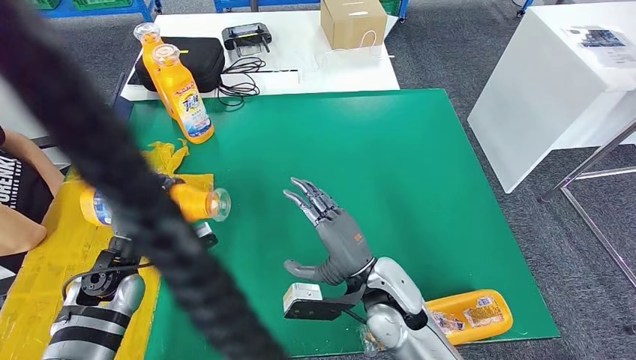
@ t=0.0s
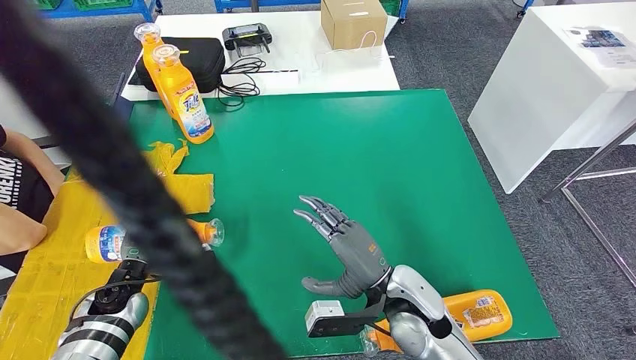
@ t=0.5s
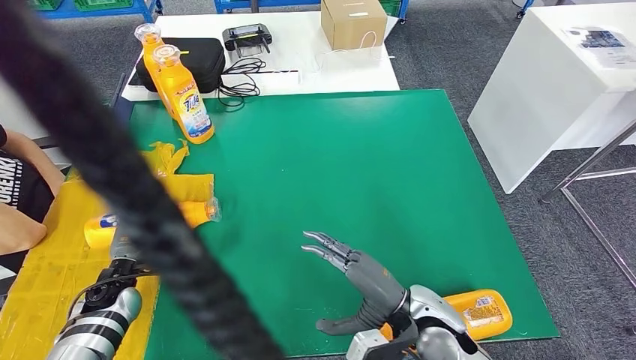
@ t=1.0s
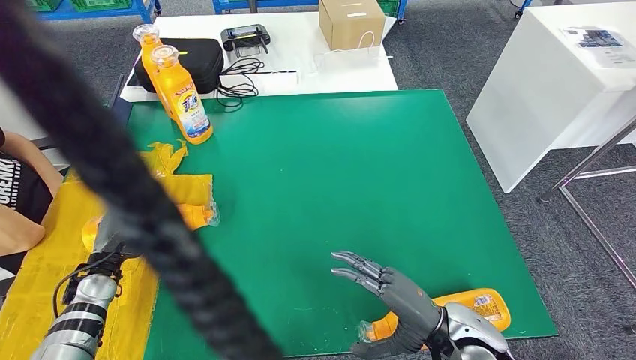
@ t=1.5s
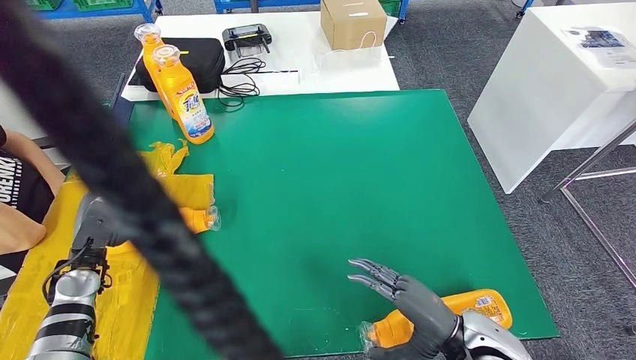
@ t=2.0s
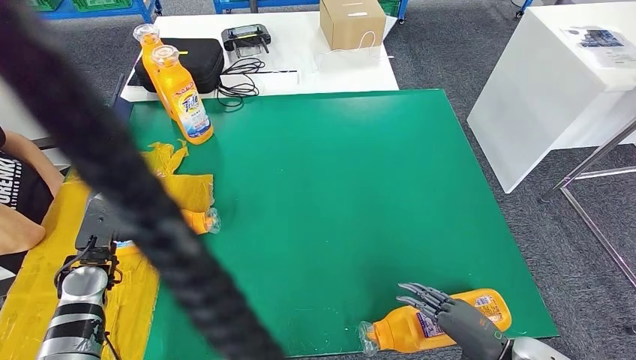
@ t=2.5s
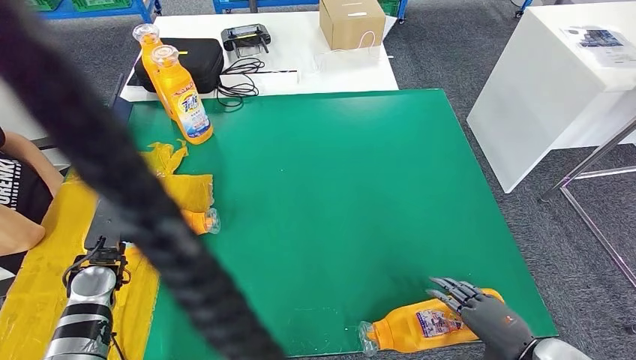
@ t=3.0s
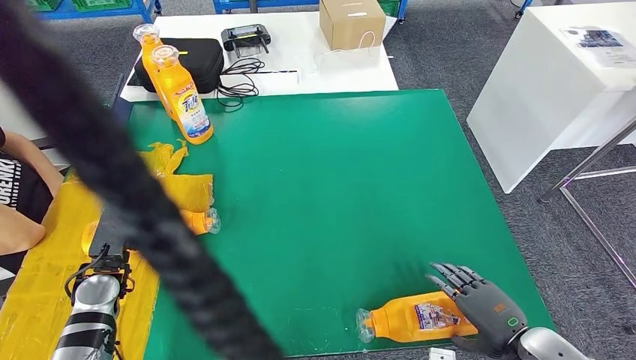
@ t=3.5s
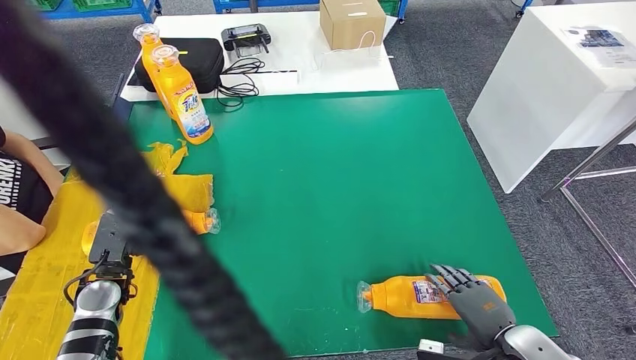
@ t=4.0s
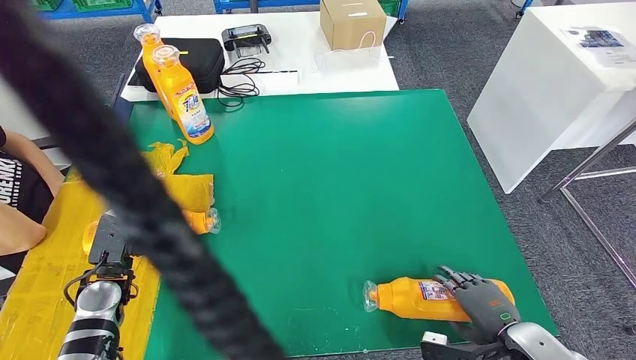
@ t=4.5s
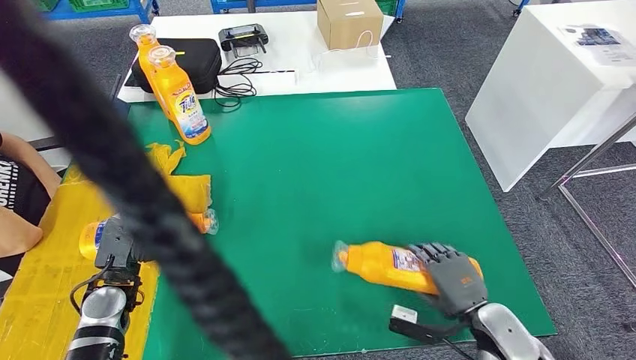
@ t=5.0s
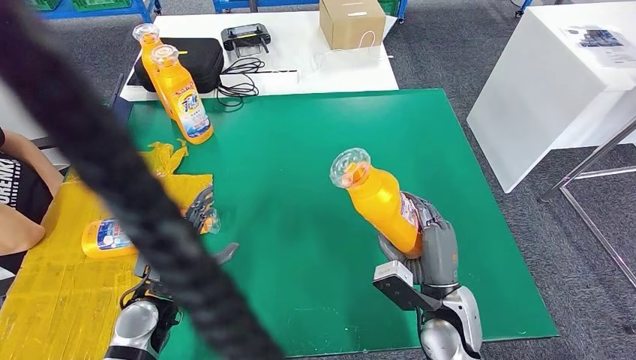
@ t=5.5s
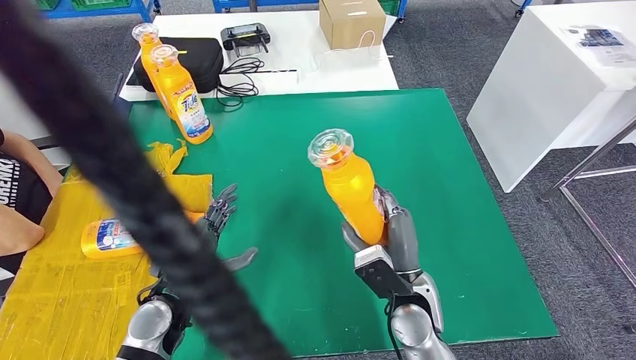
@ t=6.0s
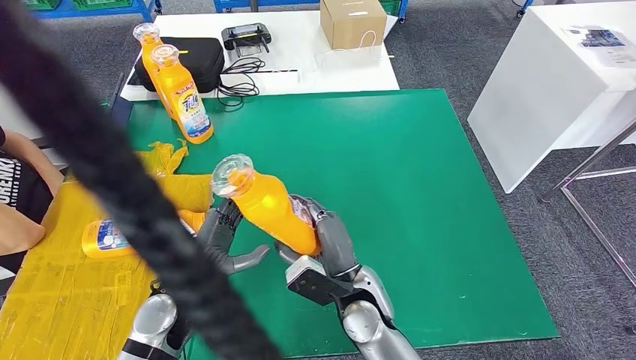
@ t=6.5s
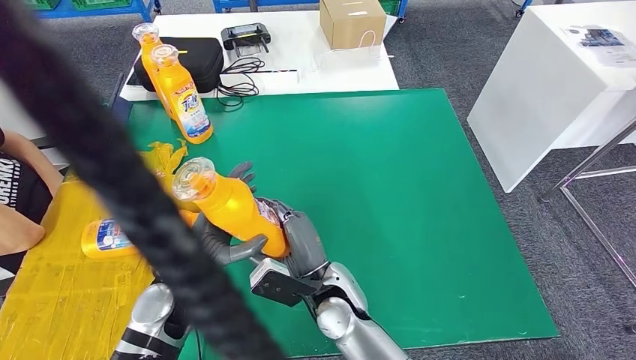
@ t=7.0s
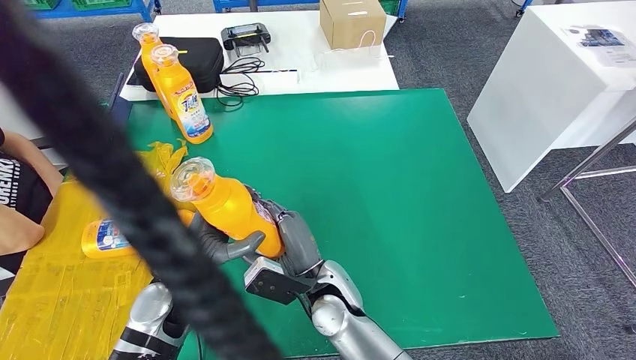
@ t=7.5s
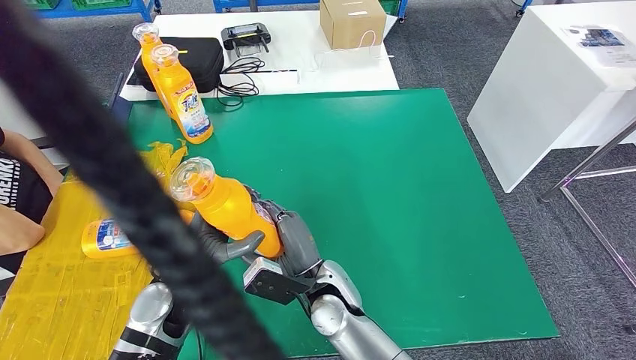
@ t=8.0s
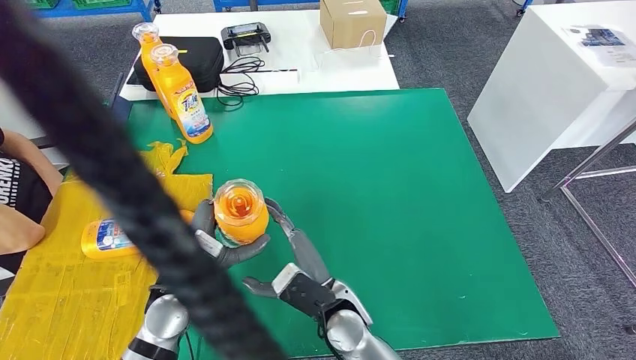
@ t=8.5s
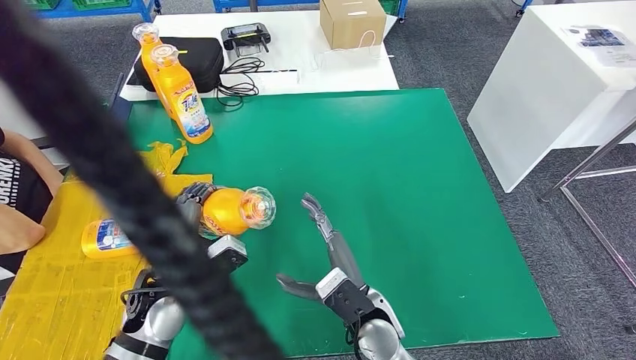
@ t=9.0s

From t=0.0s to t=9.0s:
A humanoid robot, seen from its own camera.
Step, from t=1.5s to t=6.0s: Pick up the bottle from the table.
Step, from t=6.5s to t=9.0s: Flip the bottle to face forward.
From t=0.0s to t=2.0s: The left hand travels to the left by some 10 cm. The right hand travels to the right and backward by some 15 cm.
From t=2.0s to t=4.5s: The left hand goes approximately 5 cm to the right. The right hand shifts about 10 cm to the right.
From t=4.5s to t=7.0s: The right hand is displaced to the left by approximately 30 cm, while the left hand goes some 15 cm to the right.
From t=7.0s to t=9.0s: The right hand heads to the right, covering some 5 cm.

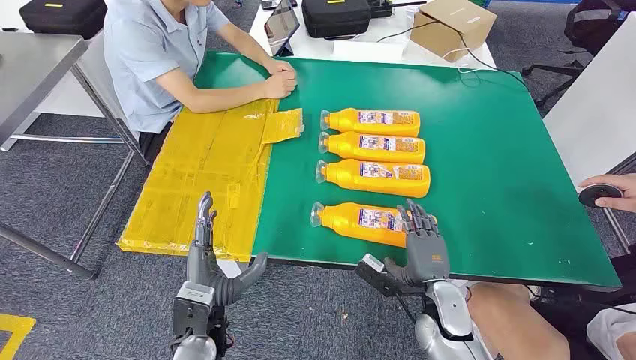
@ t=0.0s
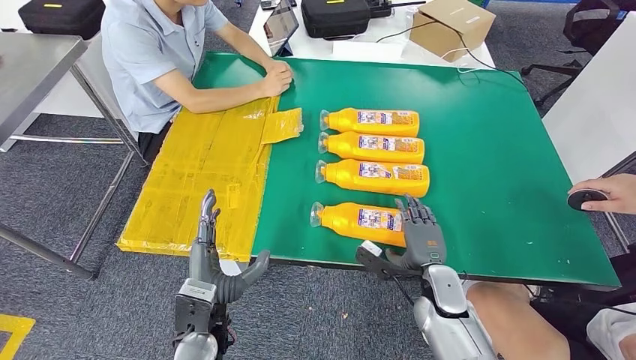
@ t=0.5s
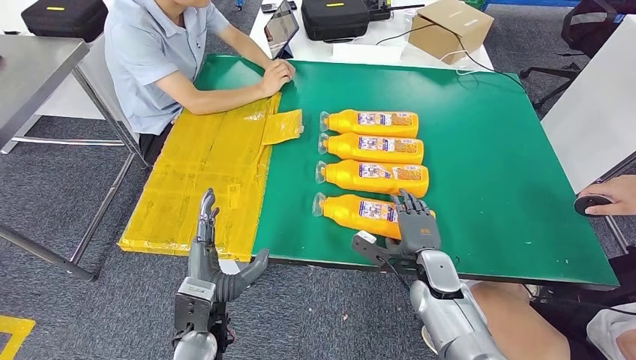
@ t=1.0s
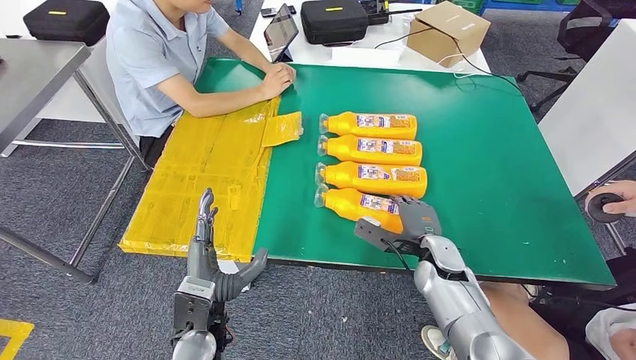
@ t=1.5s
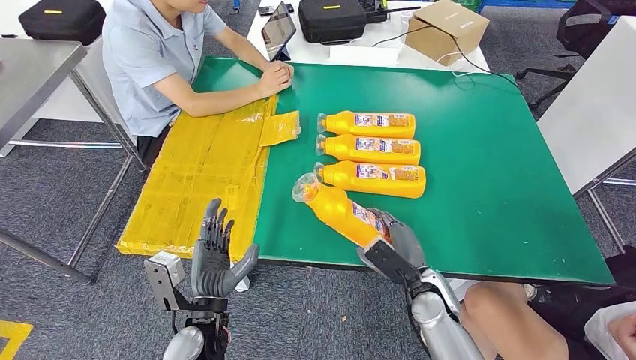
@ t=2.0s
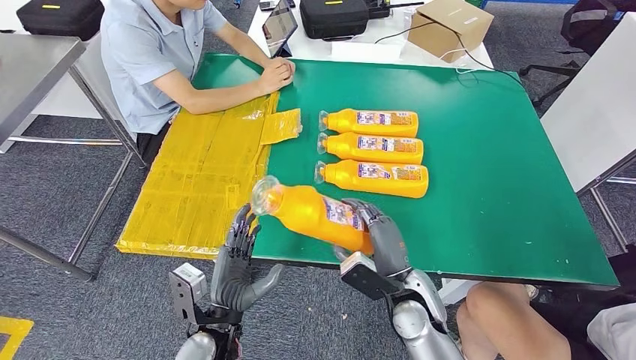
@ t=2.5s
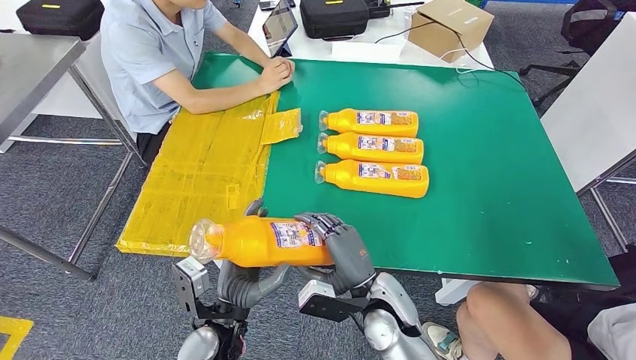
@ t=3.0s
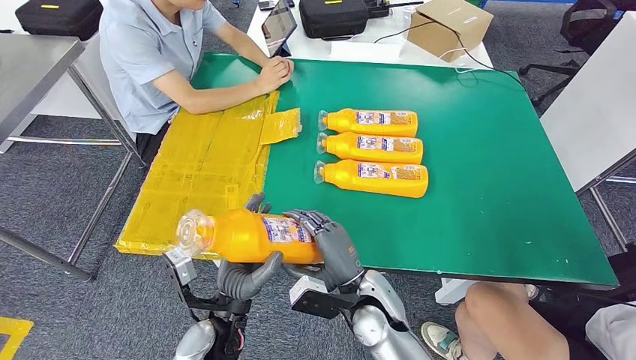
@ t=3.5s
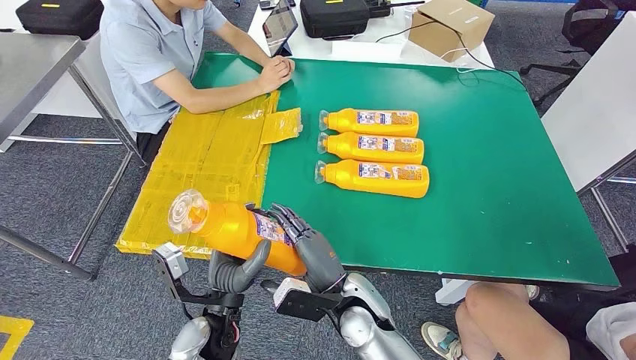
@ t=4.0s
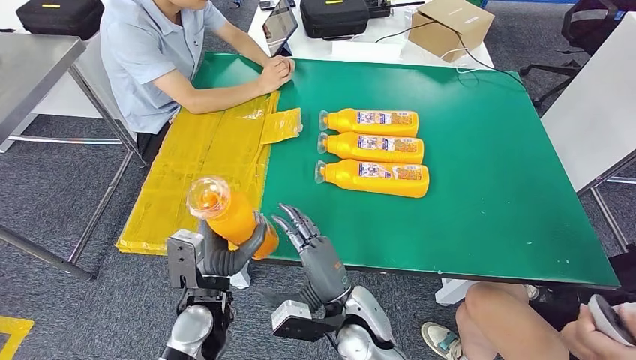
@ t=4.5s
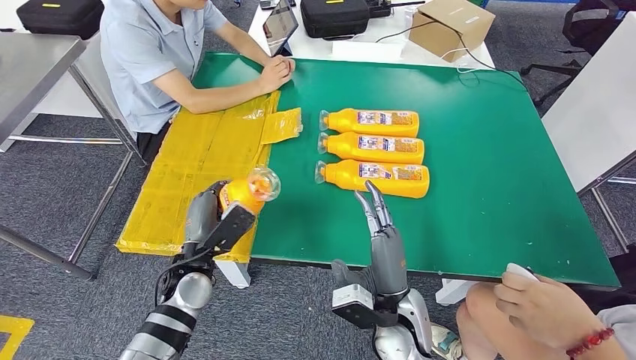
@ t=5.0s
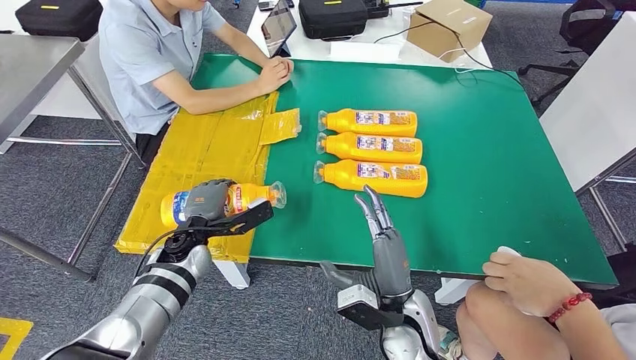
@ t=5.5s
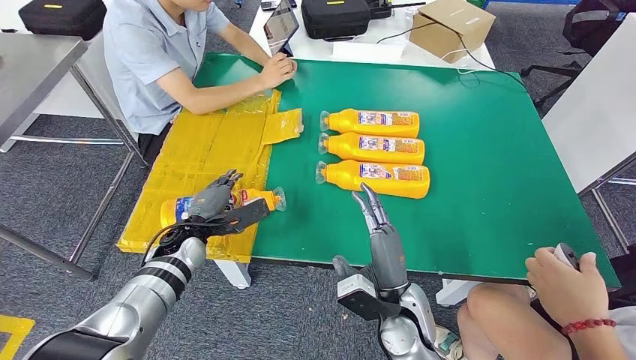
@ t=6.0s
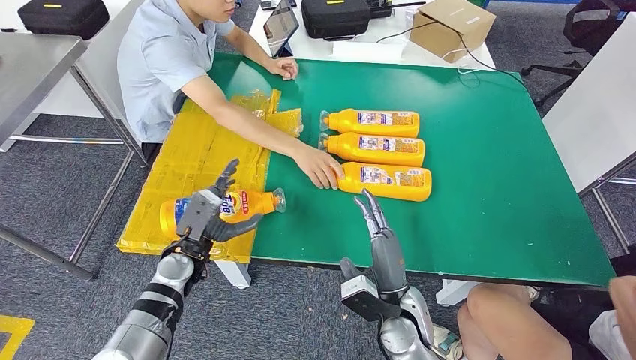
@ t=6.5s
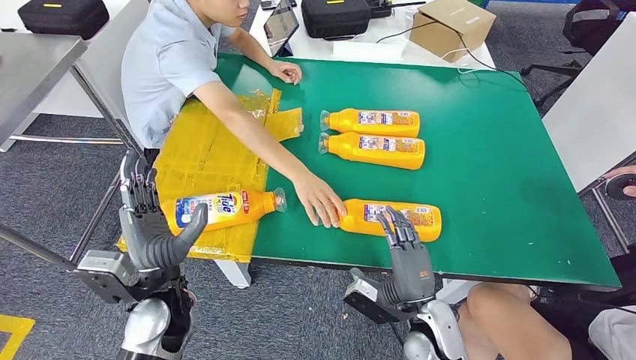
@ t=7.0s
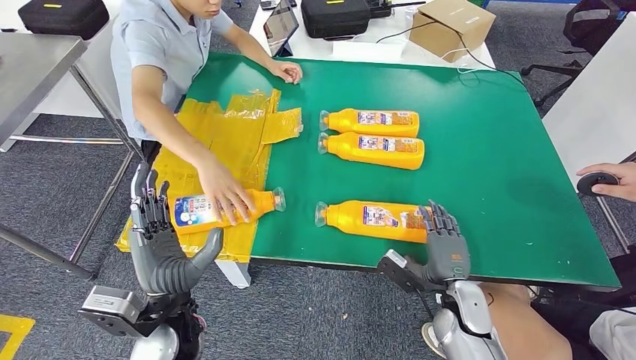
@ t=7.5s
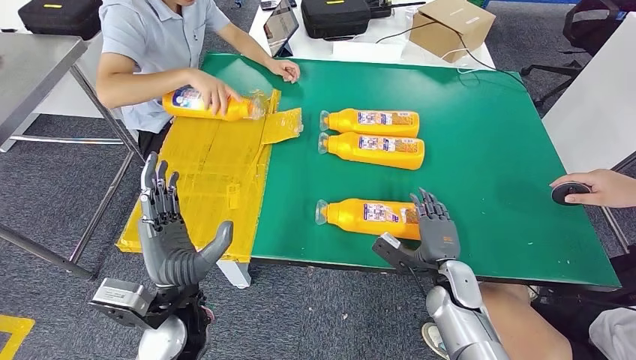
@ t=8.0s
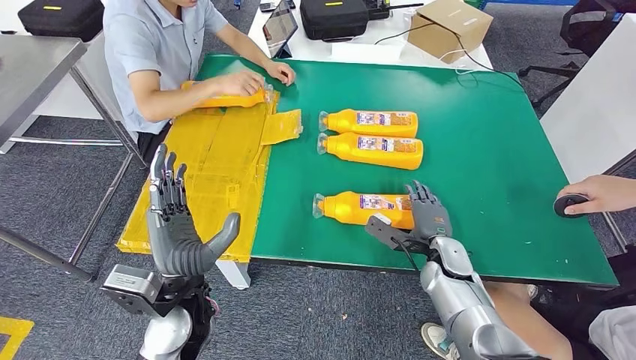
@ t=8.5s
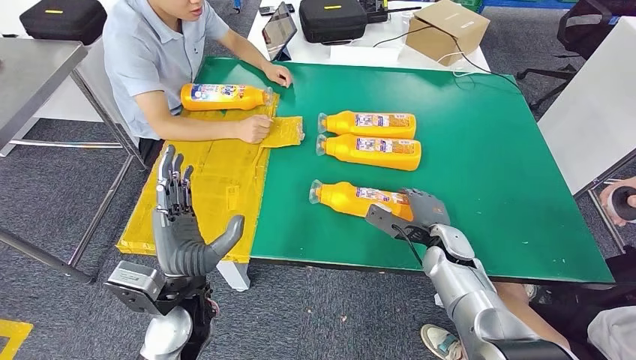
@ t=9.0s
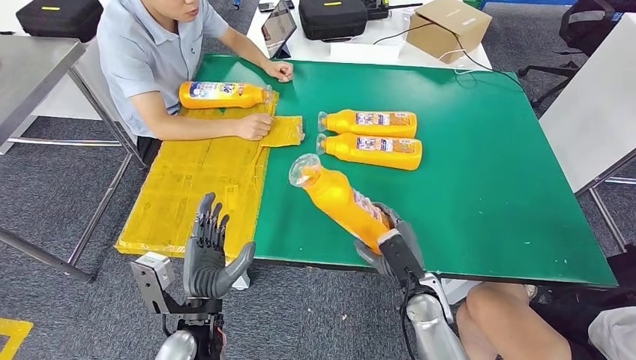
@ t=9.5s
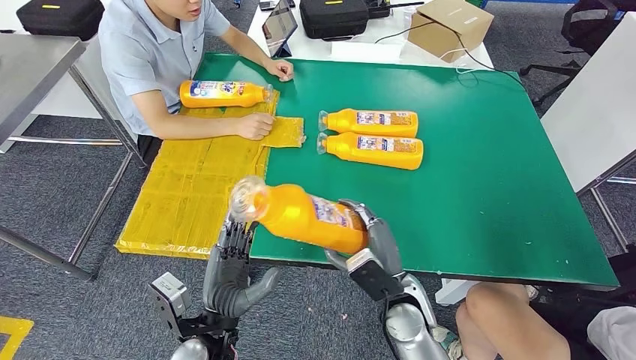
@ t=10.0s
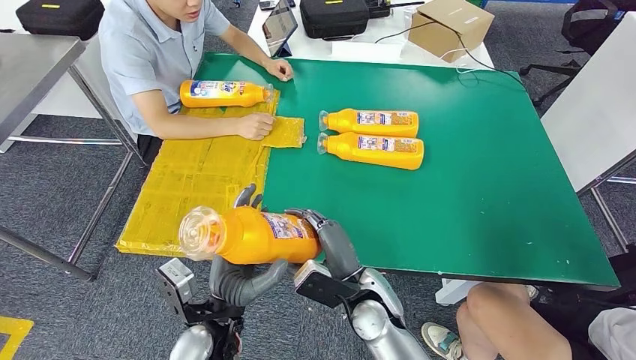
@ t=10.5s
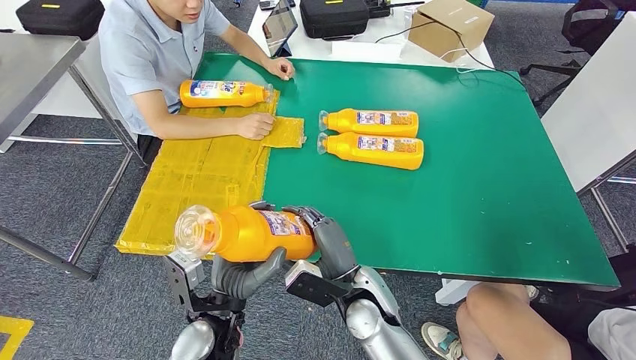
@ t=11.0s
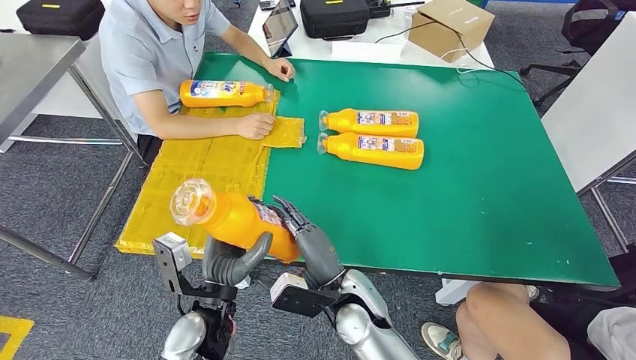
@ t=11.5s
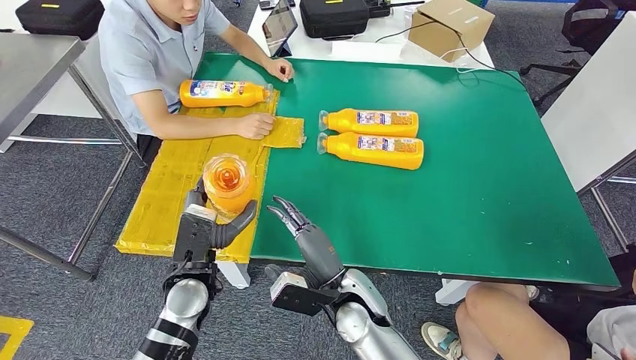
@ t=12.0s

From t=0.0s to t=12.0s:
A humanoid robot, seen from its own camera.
Step, from t=0.0s to t=3.5s: Take the bottle from the table.
Step, from t=4.0s to t=6.5s: Flip the bottle to face forward.
Step, from t=8.5s to t=10.5s: Pick up the bottle from the table.
From t=10.0s to t=12.0s: The right hand shifts roughly 10 cm to the left. The left hand shifts about 10 cm forward.
